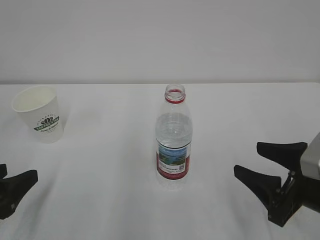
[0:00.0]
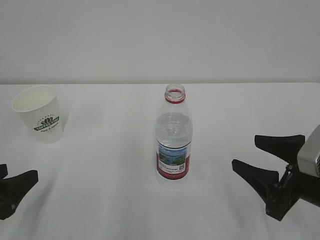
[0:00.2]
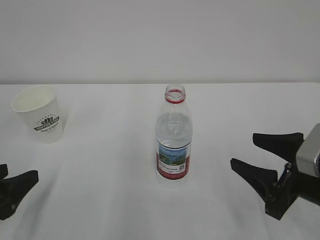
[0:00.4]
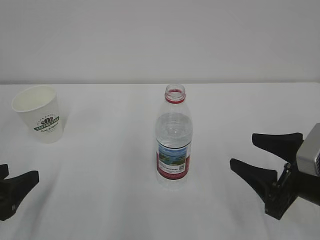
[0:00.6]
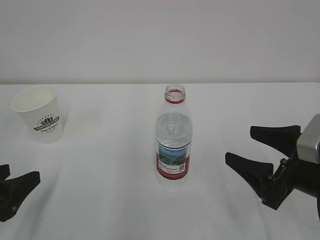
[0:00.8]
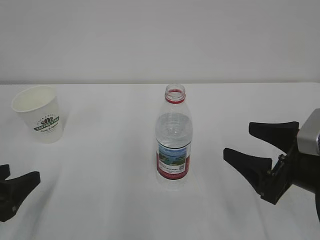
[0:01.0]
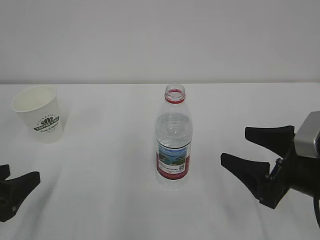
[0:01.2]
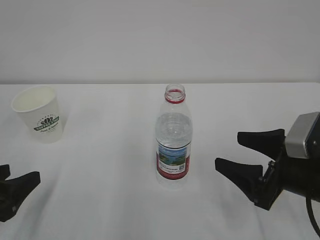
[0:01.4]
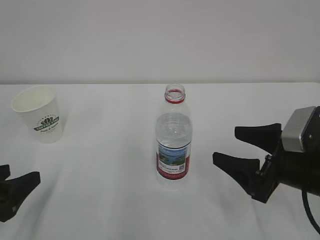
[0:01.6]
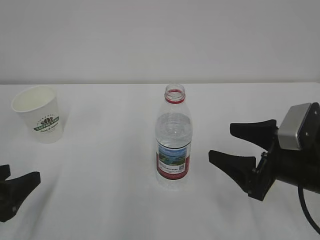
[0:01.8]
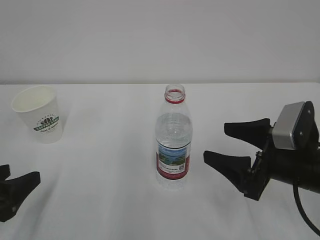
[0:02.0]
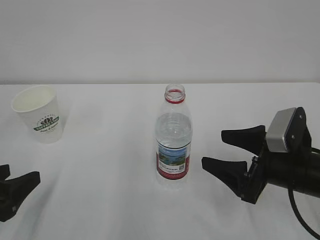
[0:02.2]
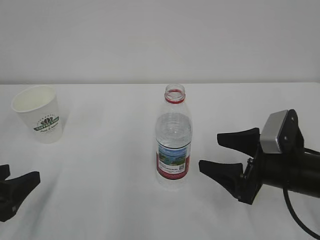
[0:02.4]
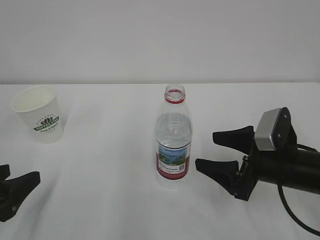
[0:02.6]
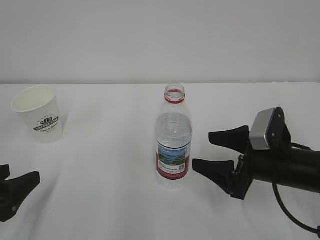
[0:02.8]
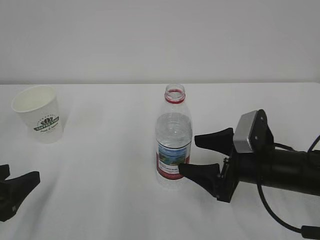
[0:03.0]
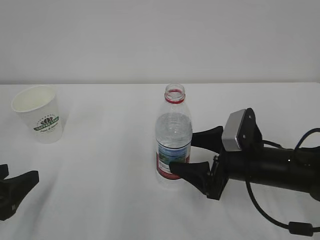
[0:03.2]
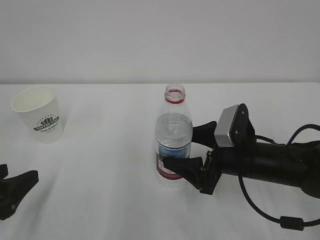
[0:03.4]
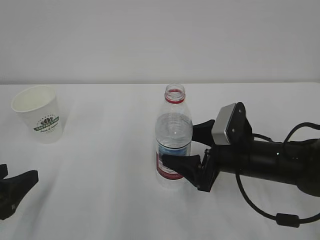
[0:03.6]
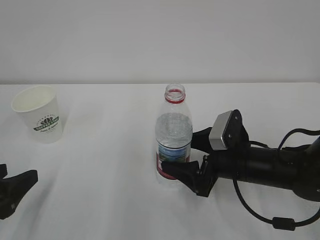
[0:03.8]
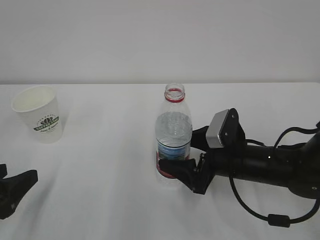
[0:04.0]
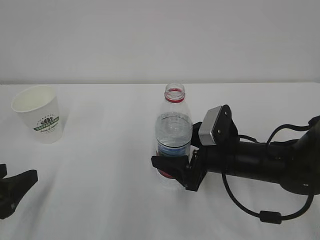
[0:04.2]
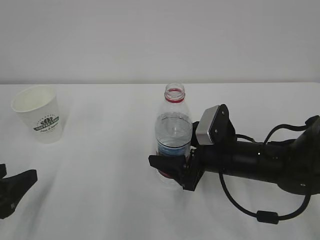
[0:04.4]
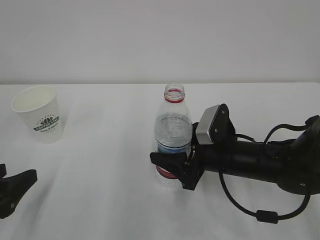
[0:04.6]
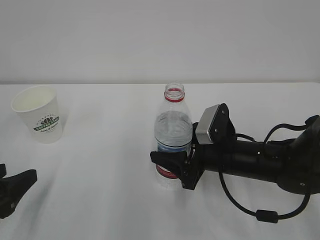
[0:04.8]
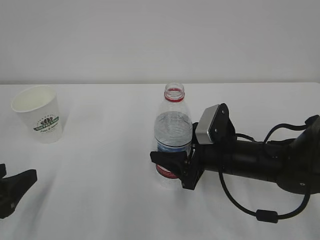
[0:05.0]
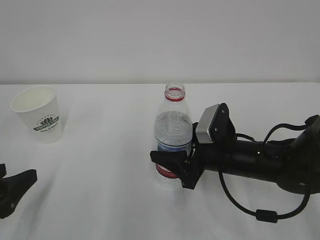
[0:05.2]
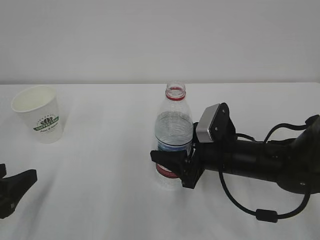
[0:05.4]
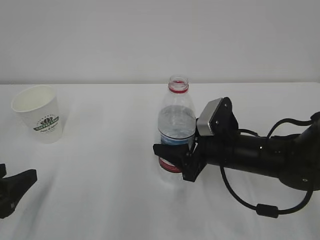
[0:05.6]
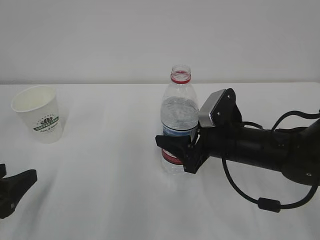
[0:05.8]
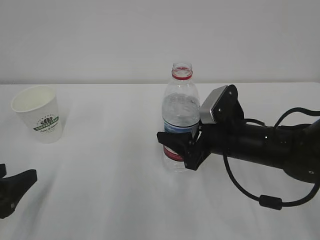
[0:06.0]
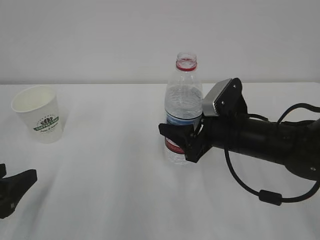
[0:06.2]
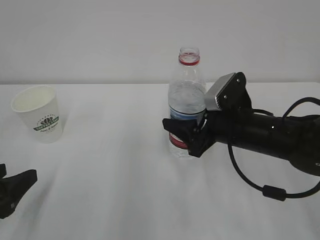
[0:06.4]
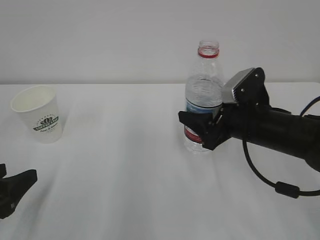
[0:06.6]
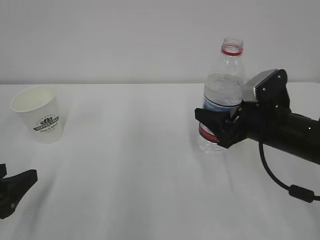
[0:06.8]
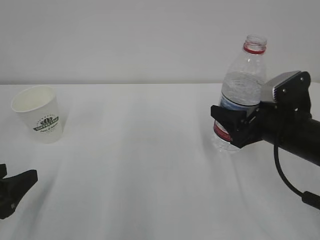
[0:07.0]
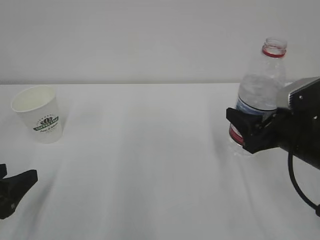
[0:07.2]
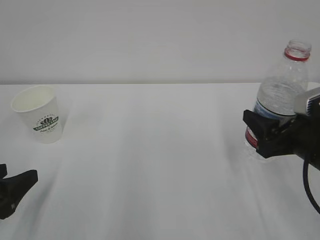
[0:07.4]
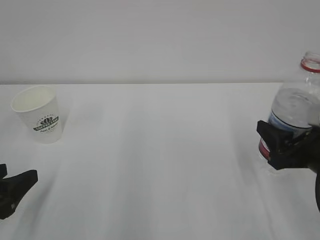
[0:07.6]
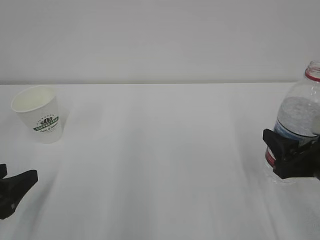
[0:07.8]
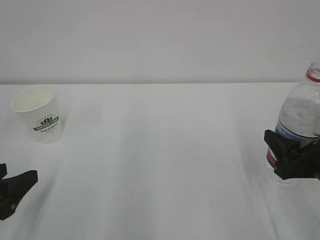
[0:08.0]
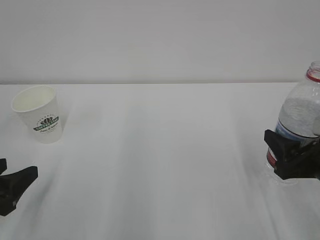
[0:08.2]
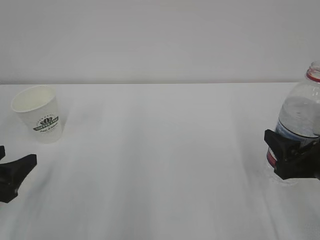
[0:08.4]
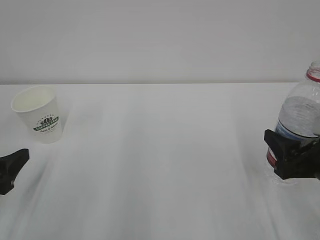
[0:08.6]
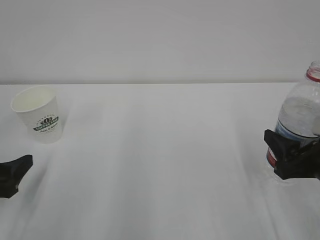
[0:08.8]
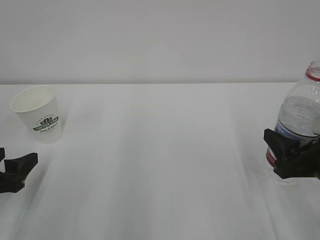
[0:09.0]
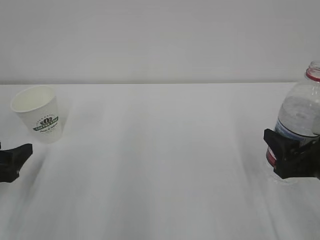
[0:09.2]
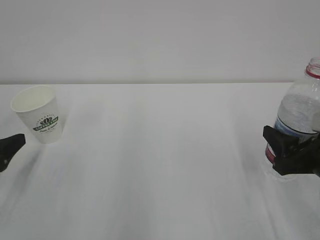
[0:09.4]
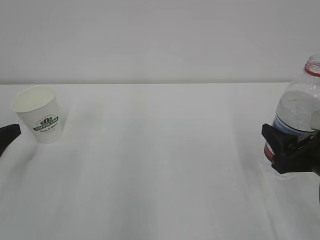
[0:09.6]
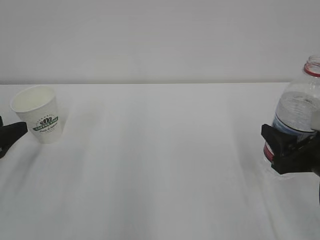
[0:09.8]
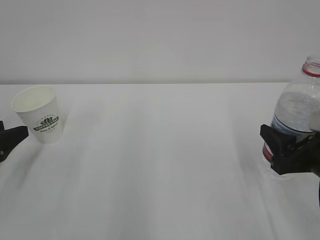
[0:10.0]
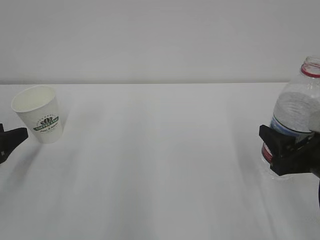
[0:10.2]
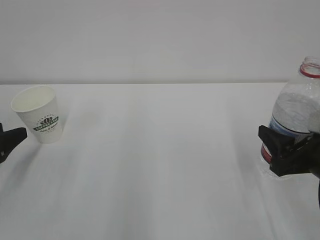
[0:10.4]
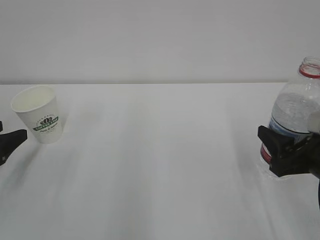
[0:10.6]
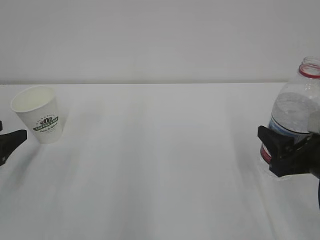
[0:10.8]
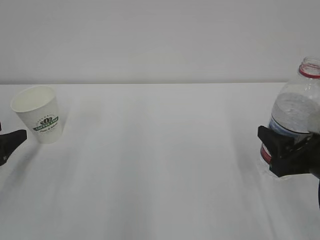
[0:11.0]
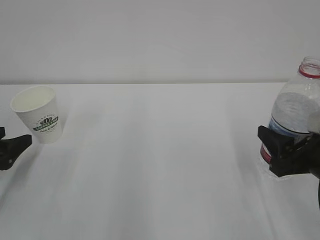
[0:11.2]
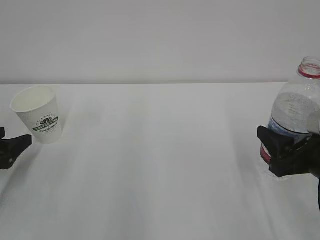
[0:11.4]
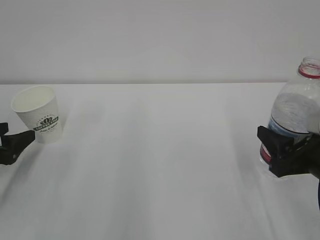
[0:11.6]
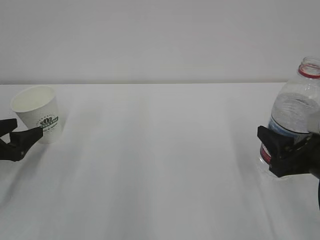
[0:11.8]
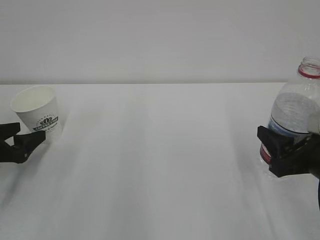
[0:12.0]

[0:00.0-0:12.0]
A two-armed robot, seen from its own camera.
0:00.0 to 0:01.6: The right gripper opens.
0:01.6 to 0:03.0: The right gripper ends up about 5 cm from where it was.
0:03.0 to 0:04.4: The right gripper shifts by roughly 5 cm.
0:04.4 to 0:06.0: The right gripper closes.
0:06.0 to 0:07.6: The right gripper moves to the right and backward, some 15 cm.
0:07.6 to 0:09.0: The grippers move only a little.
0:09.0 to 0:10.4: The left gripper moves to the left and forward, approximately 5 cm.
0:10.4 to 0:12.0: The left gripper opens its fingers.

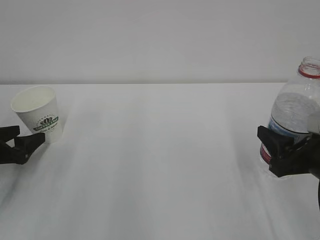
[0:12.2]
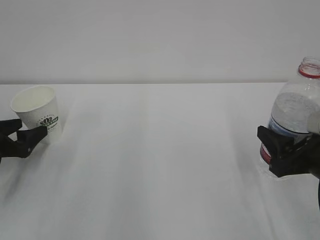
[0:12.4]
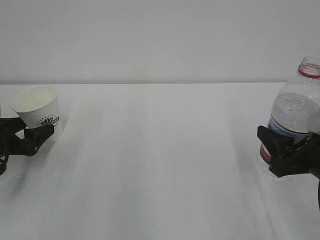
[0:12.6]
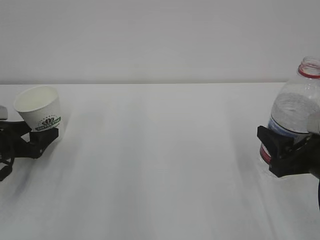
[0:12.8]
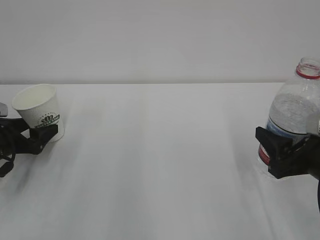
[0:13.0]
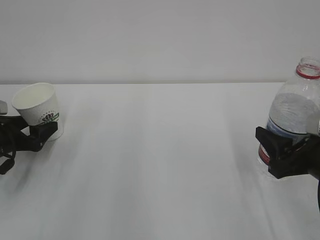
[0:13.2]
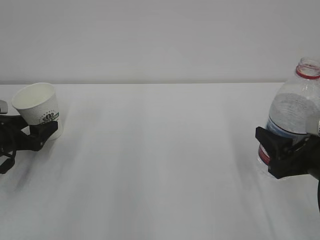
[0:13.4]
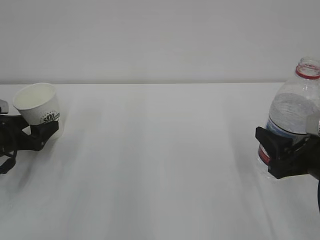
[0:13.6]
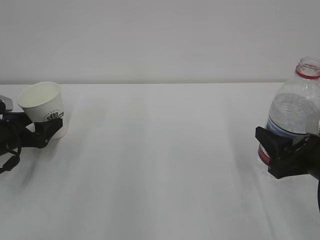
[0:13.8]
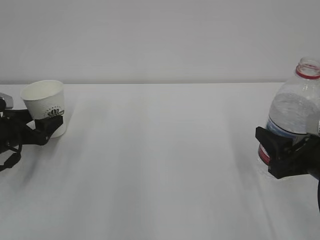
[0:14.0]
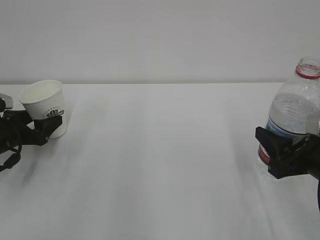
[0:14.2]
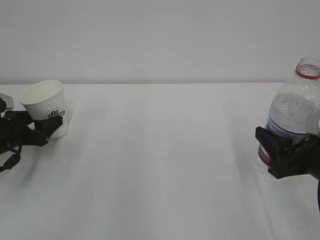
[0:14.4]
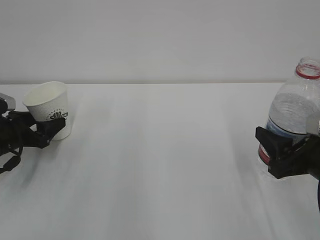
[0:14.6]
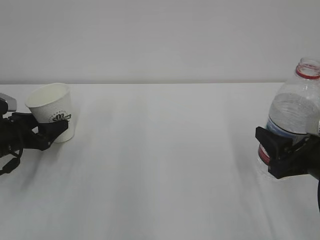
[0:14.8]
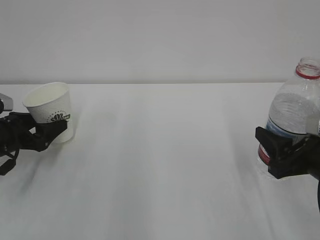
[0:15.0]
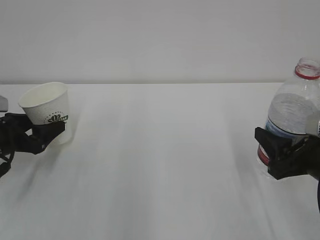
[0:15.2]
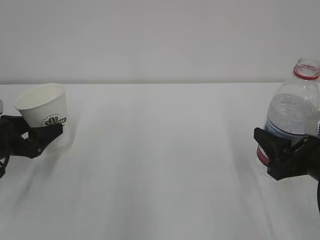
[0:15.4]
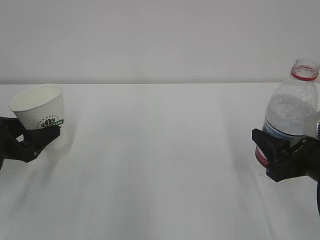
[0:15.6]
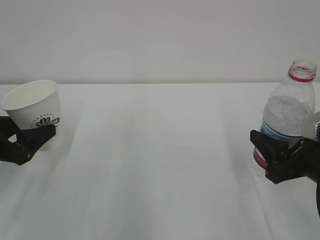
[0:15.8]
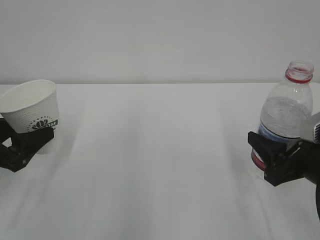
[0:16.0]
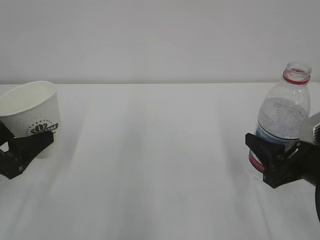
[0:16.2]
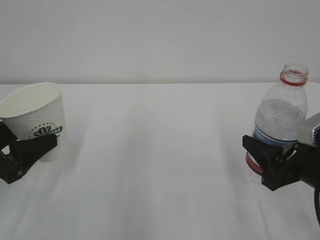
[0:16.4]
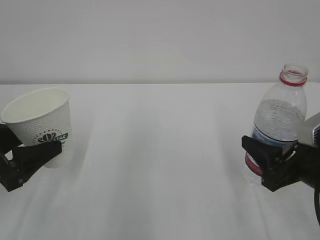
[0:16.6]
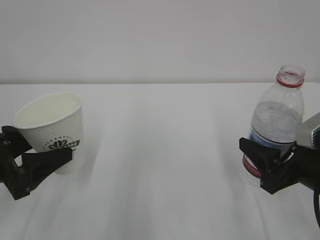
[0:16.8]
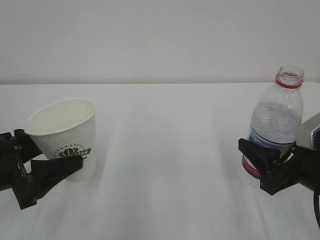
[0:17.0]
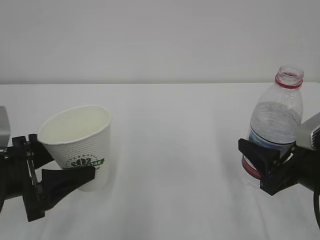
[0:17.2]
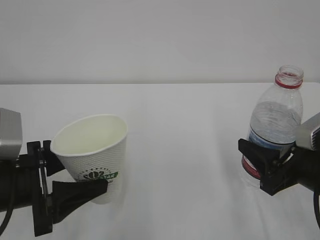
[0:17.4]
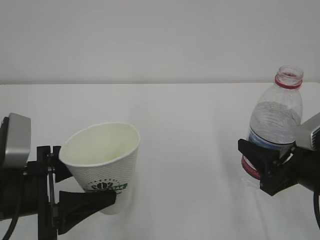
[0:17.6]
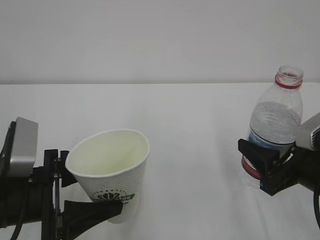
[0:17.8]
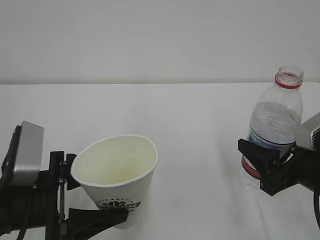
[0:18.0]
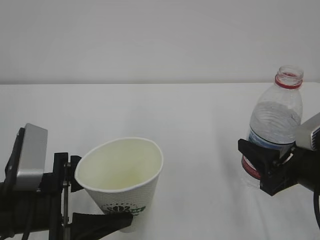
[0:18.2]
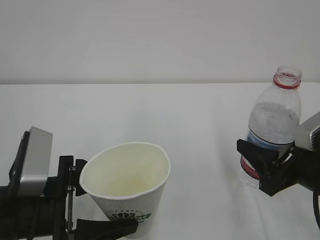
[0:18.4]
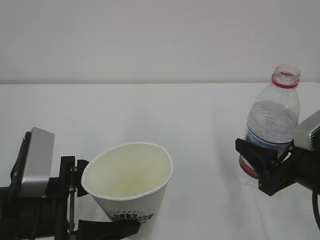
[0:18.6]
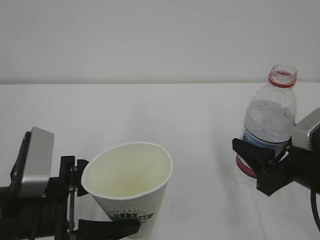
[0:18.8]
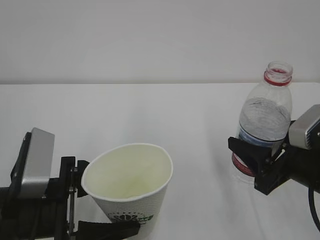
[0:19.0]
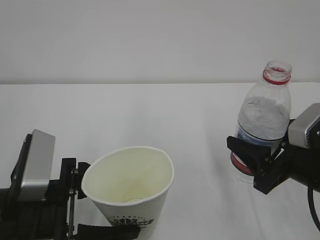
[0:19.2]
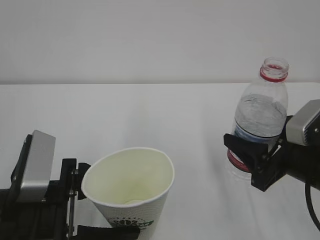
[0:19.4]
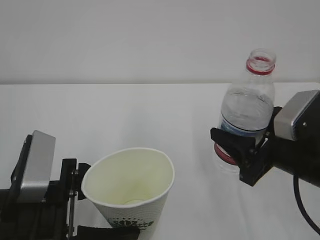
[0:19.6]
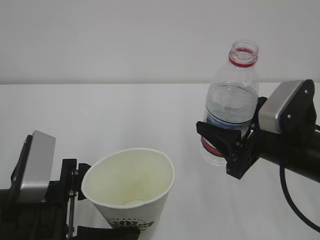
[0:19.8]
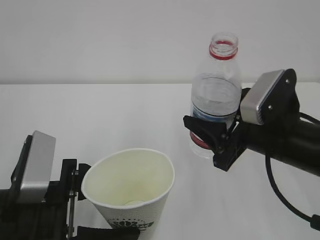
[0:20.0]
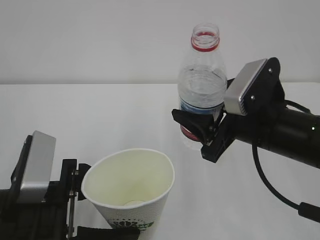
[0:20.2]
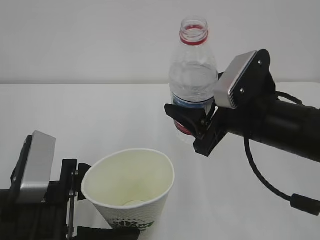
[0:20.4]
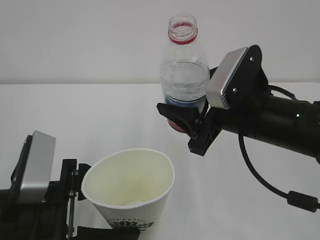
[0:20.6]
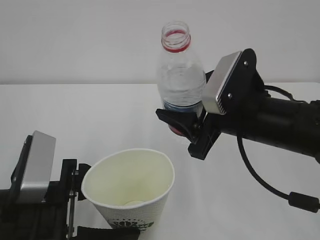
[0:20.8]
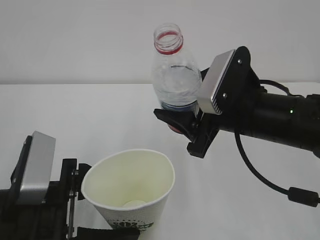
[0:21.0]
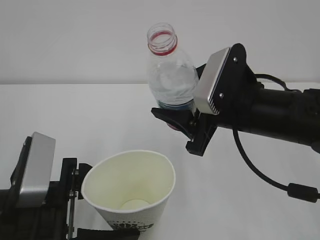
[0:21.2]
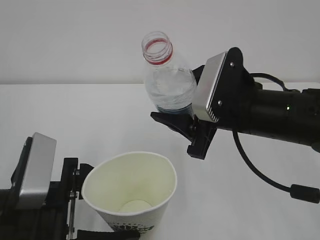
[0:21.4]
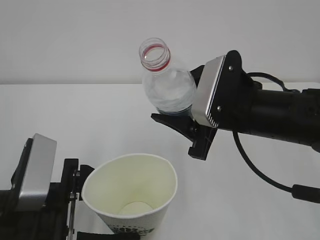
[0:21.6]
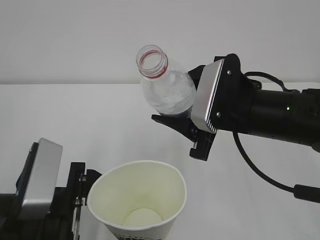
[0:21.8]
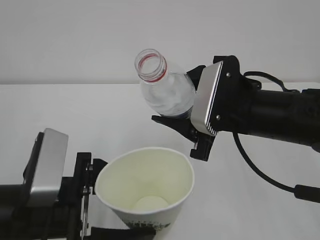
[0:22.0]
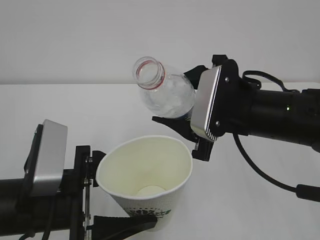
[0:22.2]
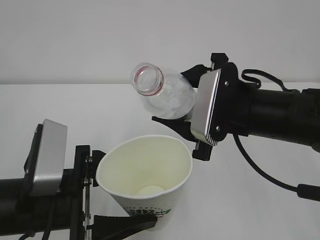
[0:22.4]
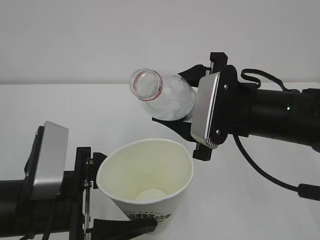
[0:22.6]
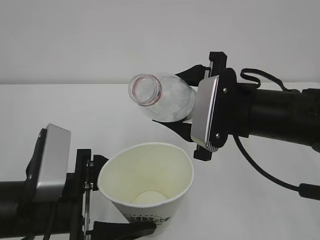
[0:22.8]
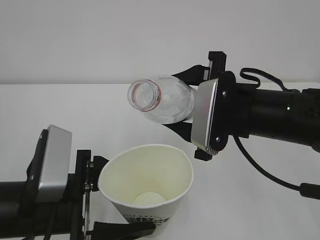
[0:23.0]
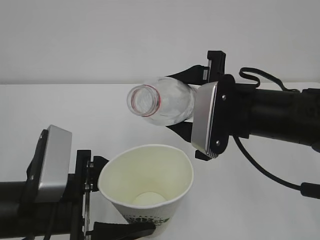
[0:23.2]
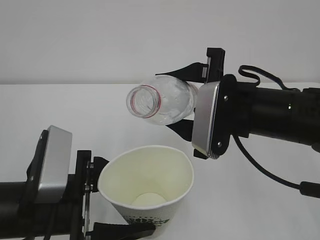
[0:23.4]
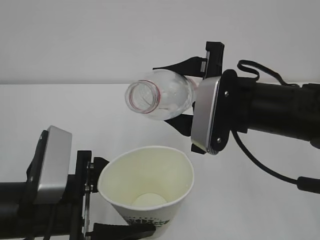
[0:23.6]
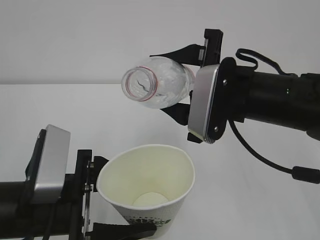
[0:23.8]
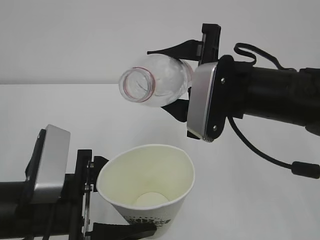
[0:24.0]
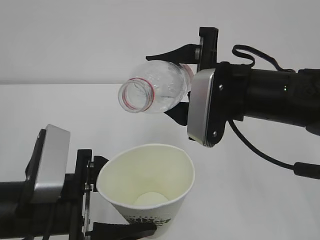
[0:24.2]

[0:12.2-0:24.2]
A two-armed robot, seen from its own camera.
0:12.2 to 0:13.8: The grippers move only a little.
0:13.8 to 0:15.2: The left gripper closes its fingers.
0:15.2 to 0:16.6: The left gripper goes about 10 cm backward and upward.
0:16.6 to 0:18.2: The left gripper goes approximately 10 cm to the right and backward.
0:18.2 to 0:19.8: The right gripper moves some 5 cm.
0:19.8 to 0:21.2: The right gripper heads to the left, covering about 5 cm.
0:22.6 to 0:24.2: There are only small adjustments of the grippers.
